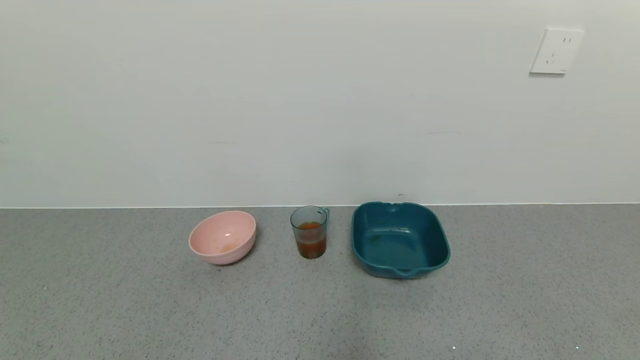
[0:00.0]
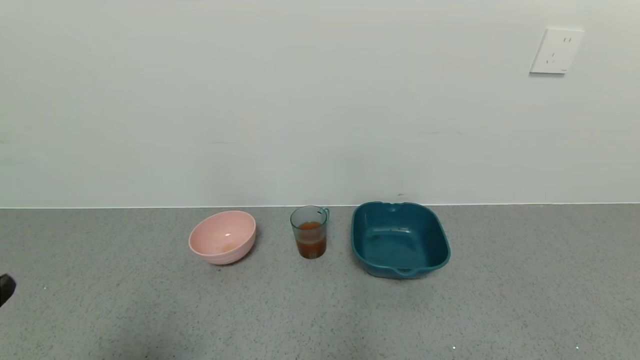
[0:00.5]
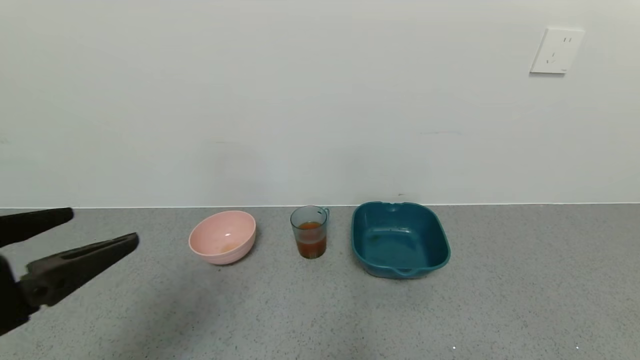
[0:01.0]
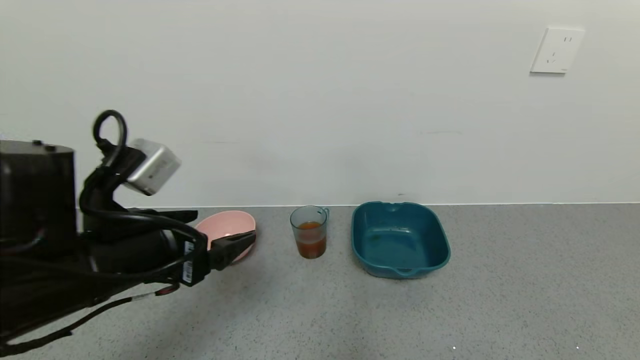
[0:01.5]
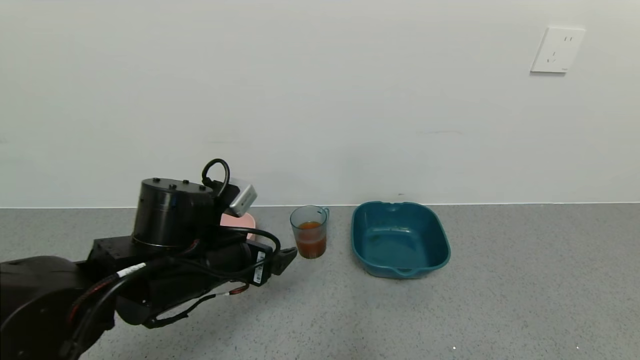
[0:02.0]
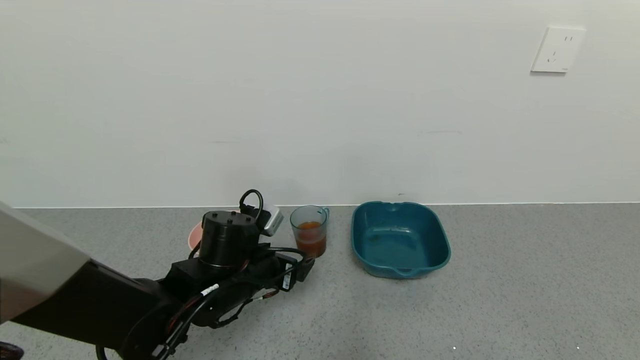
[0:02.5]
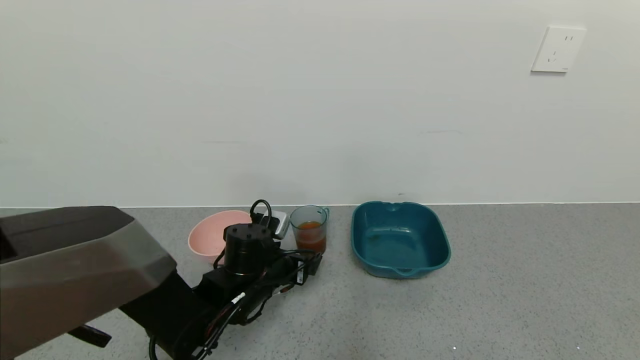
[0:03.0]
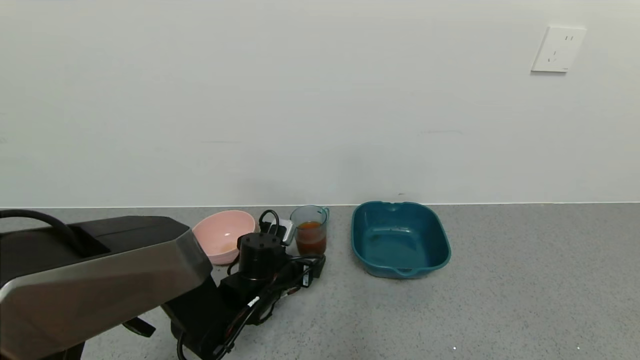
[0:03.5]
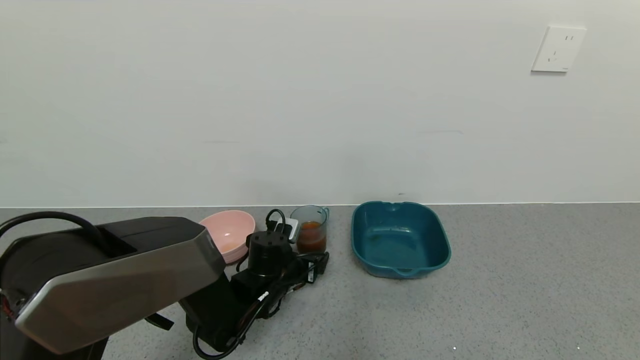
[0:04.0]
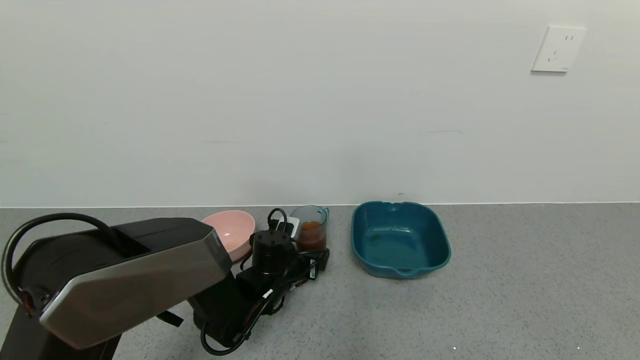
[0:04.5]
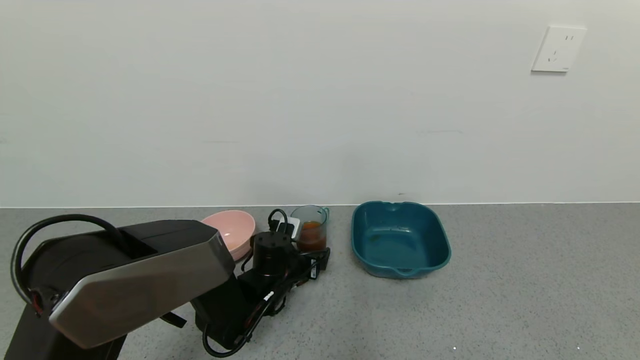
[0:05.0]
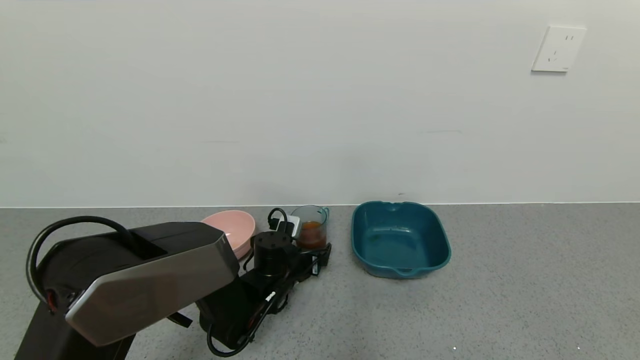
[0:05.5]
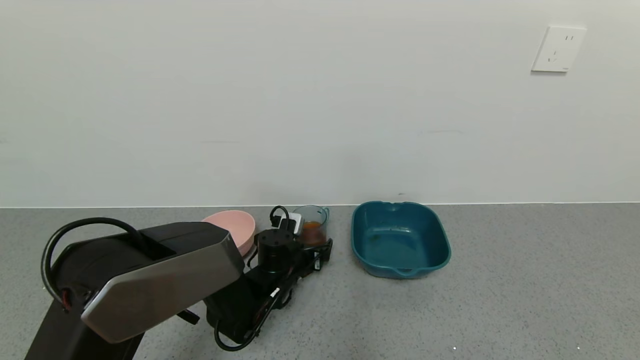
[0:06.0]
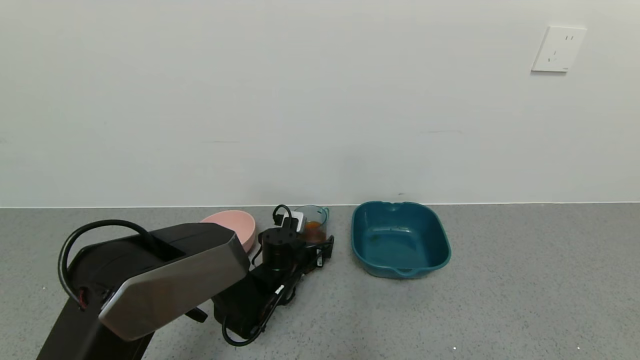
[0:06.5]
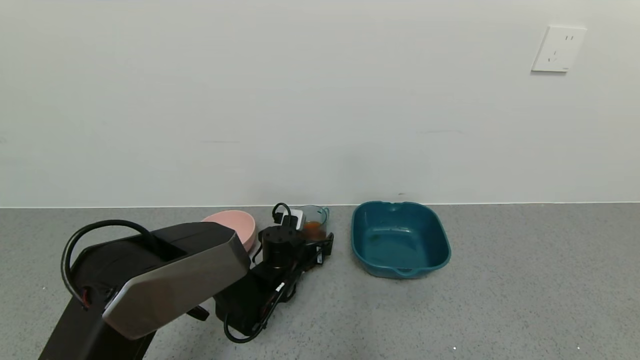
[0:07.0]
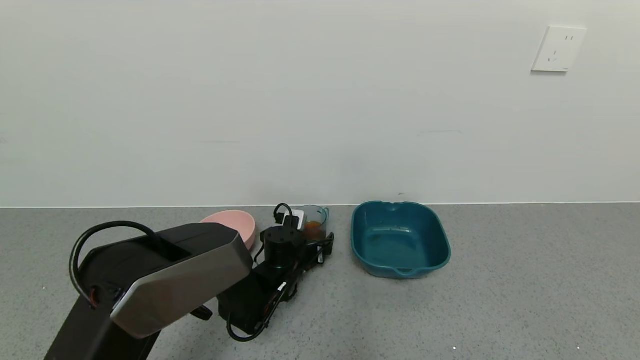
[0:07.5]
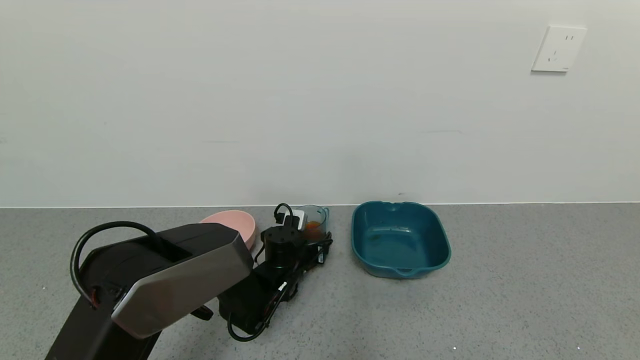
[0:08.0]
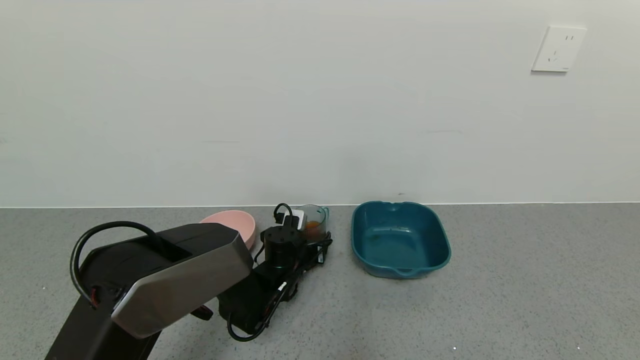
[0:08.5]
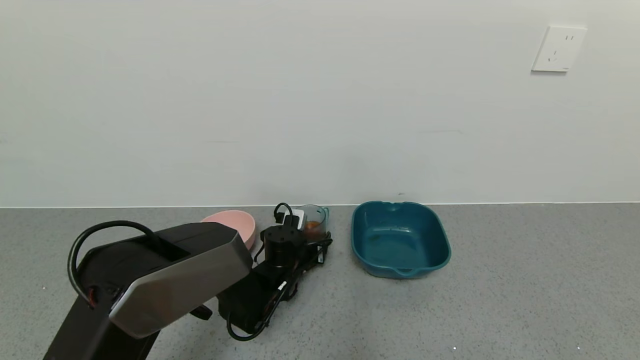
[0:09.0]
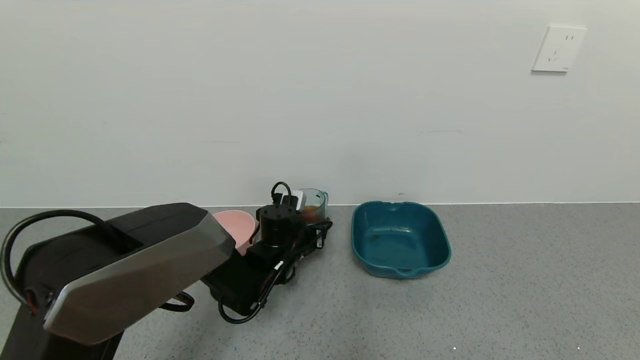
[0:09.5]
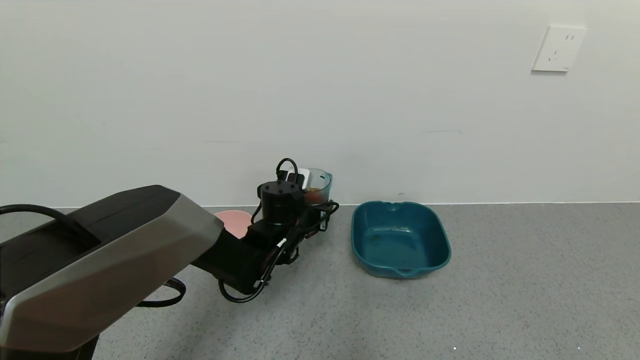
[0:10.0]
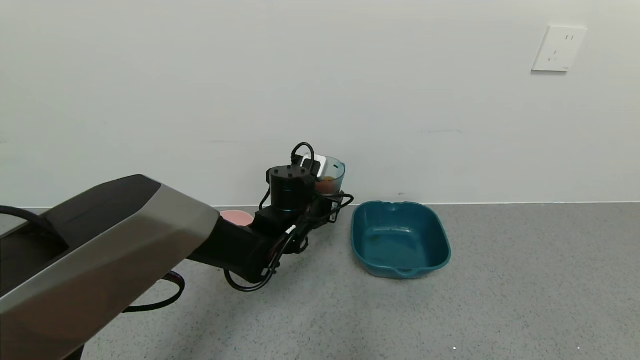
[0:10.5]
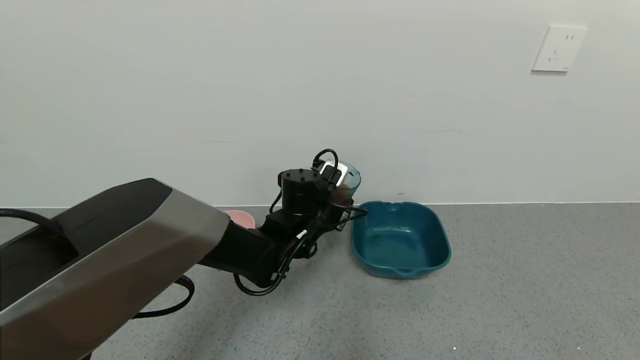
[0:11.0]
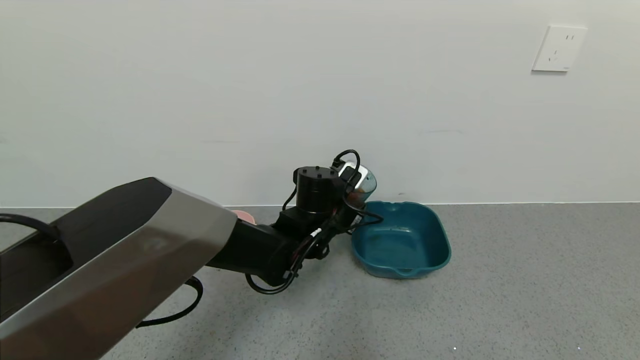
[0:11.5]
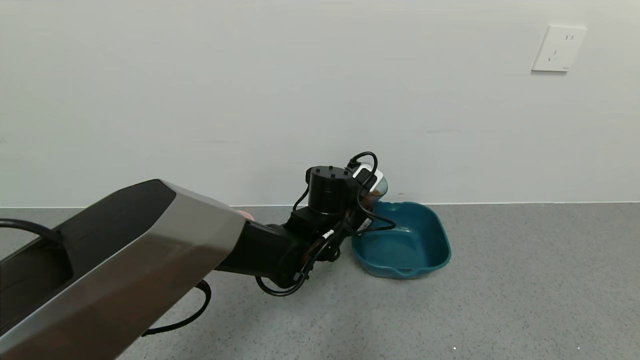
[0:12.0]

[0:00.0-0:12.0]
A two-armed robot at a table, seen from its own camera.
Task of the whole recording: use a gripper to pick up the cup and pour the liquid into a bowl or tray.
Step, 0:00.0 to 0:08.5: Grasp the glass of black tea with the left gripper.
0:00.0 to 0:02.0: The left gripper is displaced forward and to the right by about 30 cm.
0:02.0 to 0:04.0: The left gripper travels downward and forward by about 15 cm.
0:04.0 to 0:06.0: There are only small adjustments of the grippers.
0:06.0 to 0:08.0: The left gripper closes up.
0:08.0 to 0:10.0: The left gripper shifts roughly 10 cm upward.
0:10.0 to 0:12.0: The left gripper shifts about 10 cm to the right.

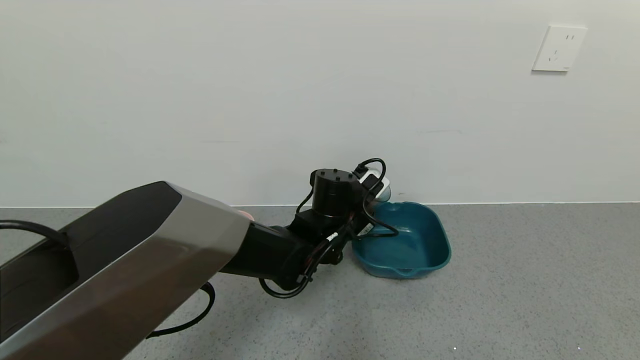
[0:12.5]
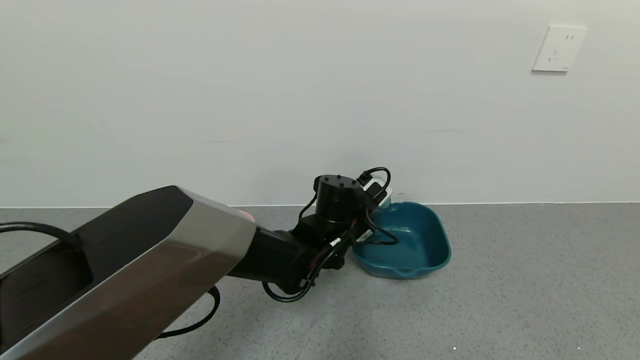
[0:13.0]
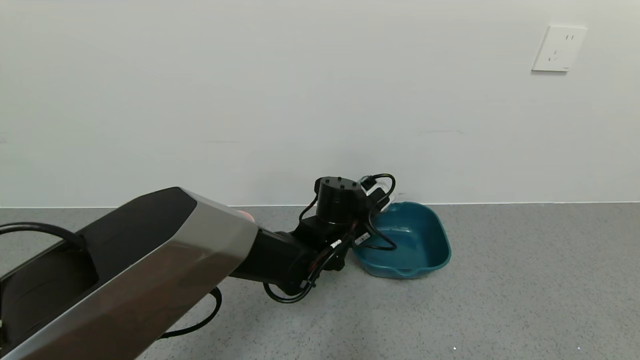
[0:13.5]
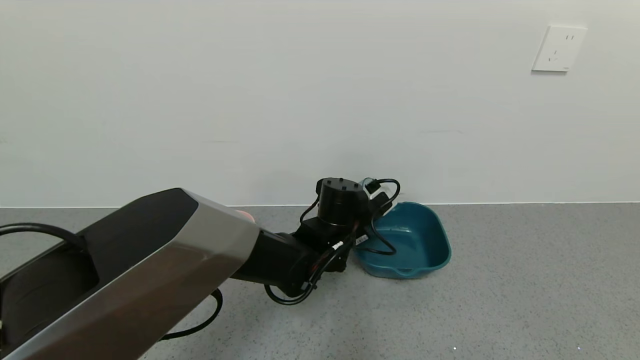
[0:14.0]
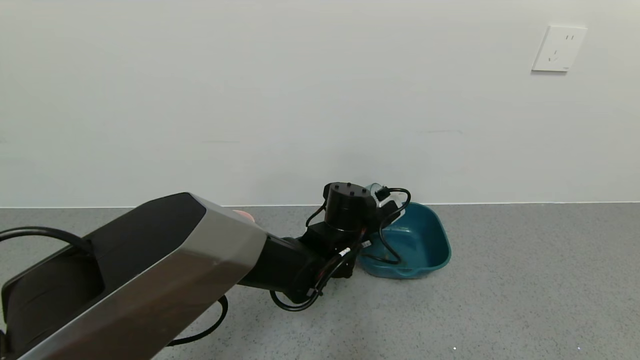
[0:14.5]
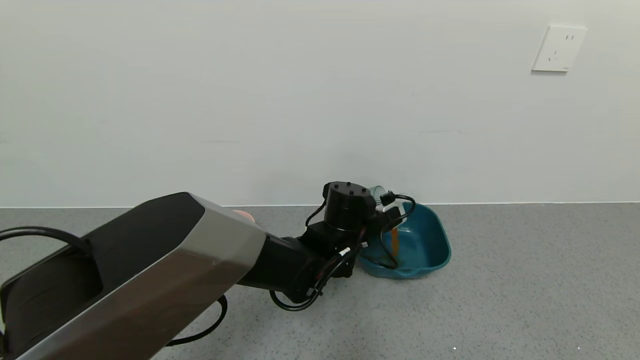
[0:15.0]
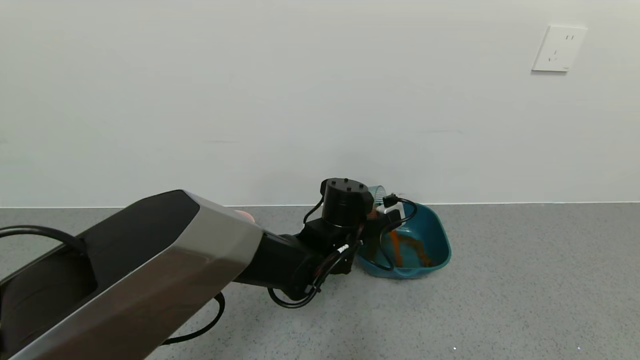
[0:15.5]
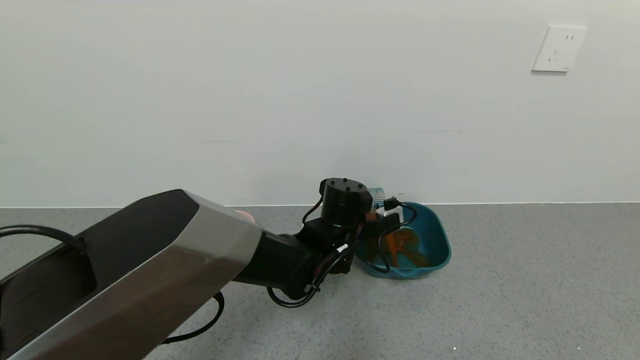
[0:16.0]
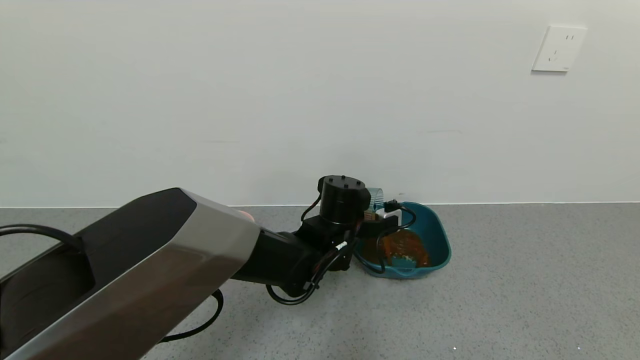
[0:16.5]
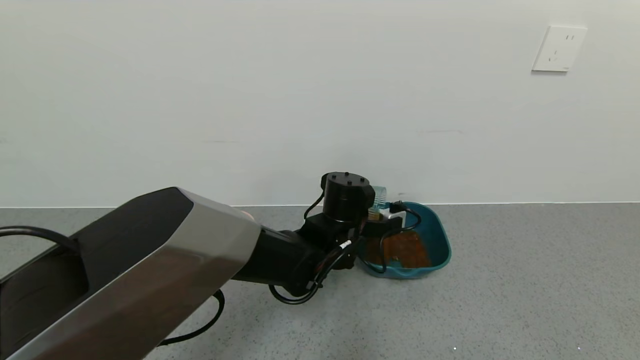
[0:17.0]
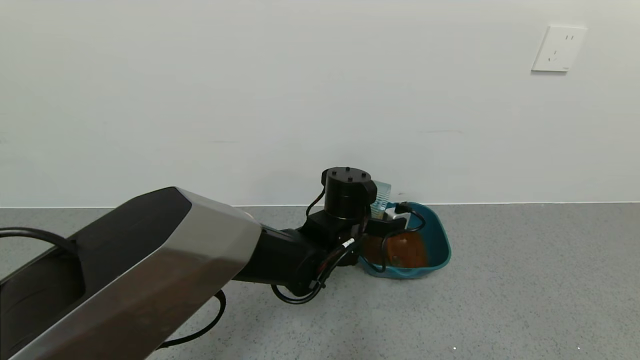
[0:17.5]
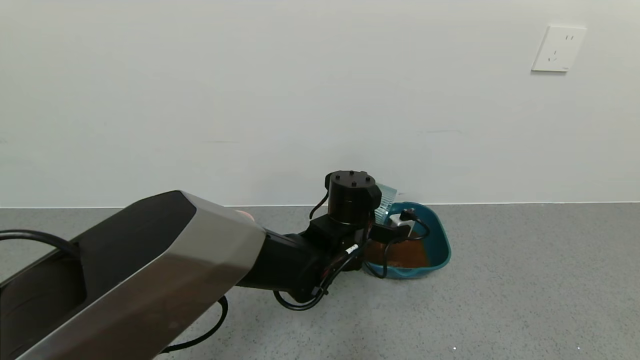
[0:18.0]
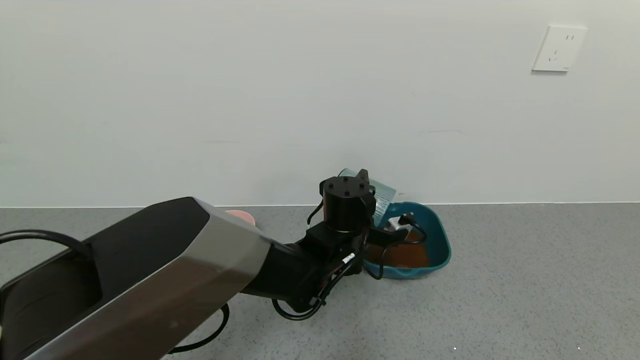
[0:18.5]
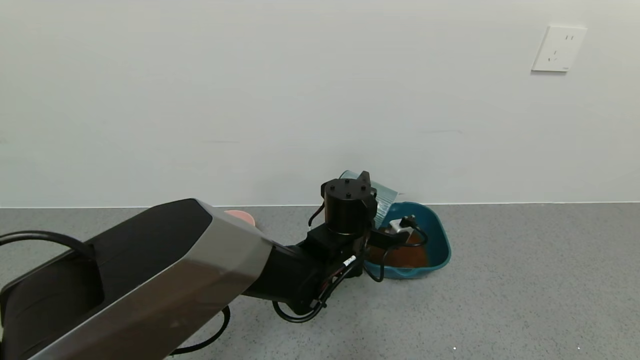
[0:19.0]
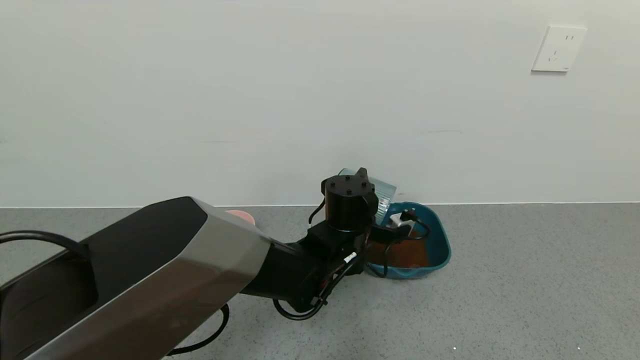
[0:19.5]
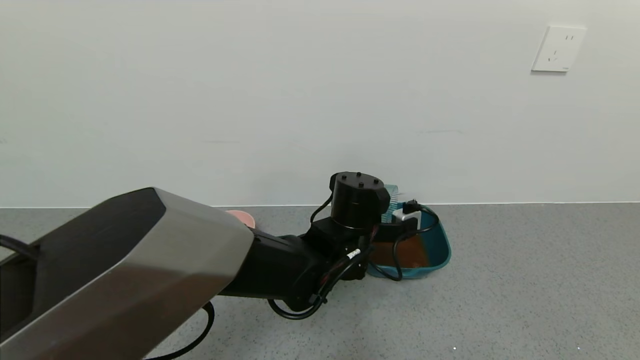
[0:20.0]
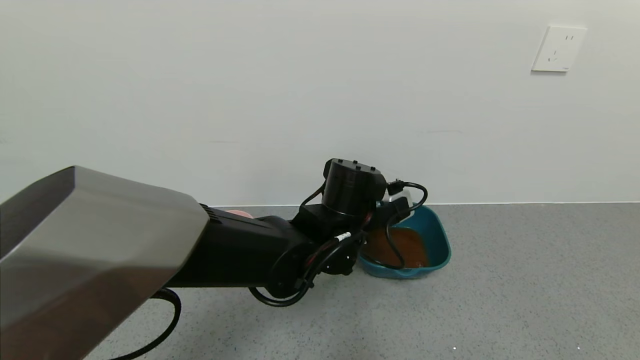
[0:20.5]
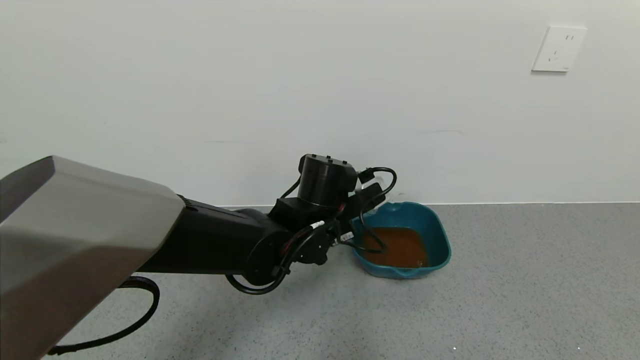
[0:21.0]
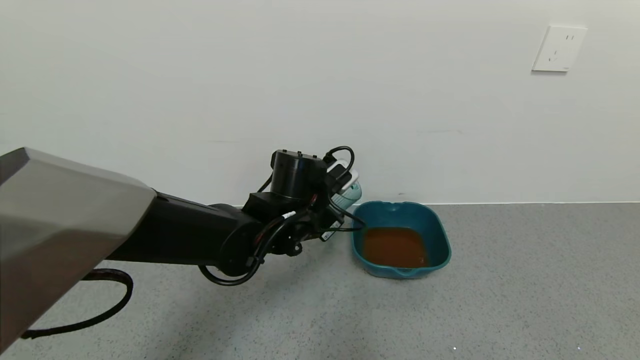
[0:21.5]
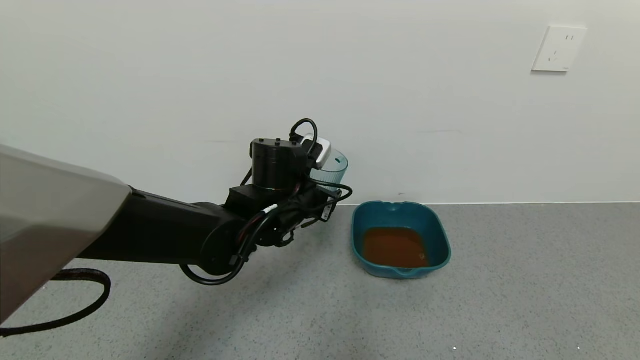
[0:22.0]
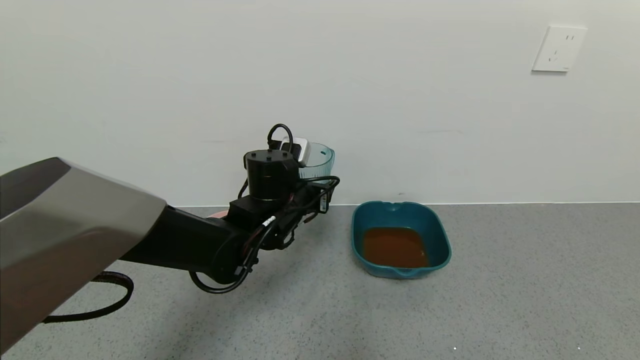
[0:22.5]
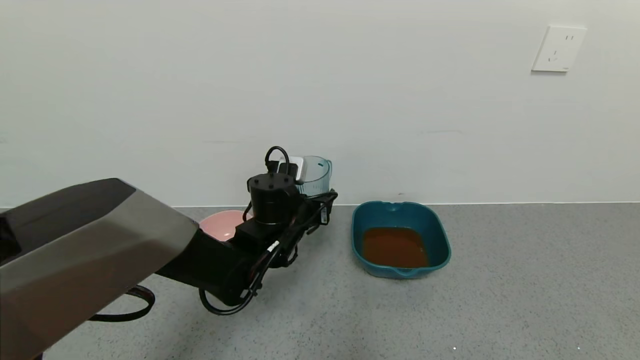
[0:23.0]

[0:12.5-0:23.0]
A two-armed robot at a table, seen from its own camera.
Task of the whole recording: use a gripper to pick up the cup and pour the liquid into a bowl or tray.
Step, 0:12.5 to 0:20.0: Pour the black tea into the green bowl with the left gripper.
0:19.0 to 0:21.0: The left gripper changes place by some 5 cm.
0:21.0 to 0:23.0: The left gripper shifts some 5 cm to the left.
